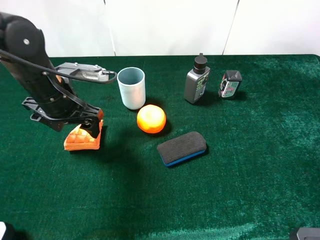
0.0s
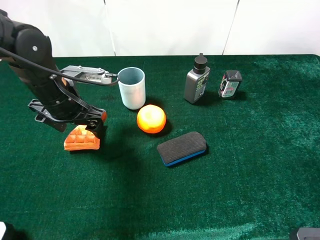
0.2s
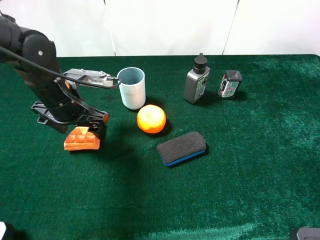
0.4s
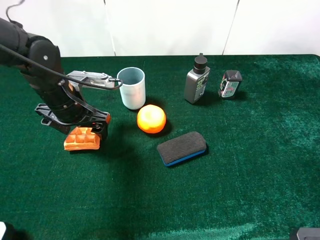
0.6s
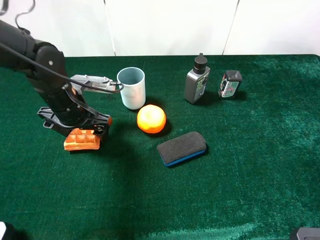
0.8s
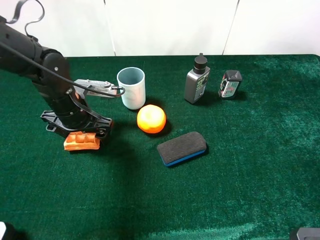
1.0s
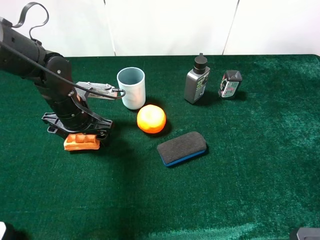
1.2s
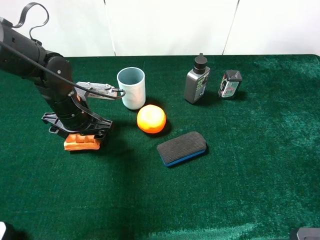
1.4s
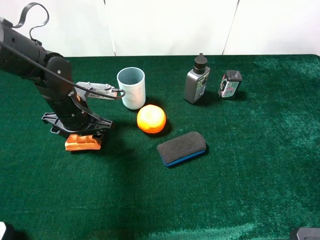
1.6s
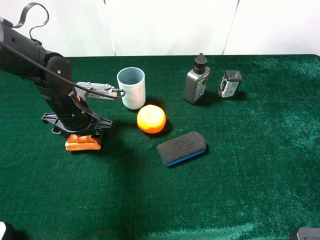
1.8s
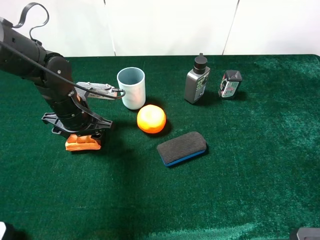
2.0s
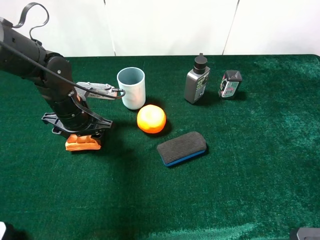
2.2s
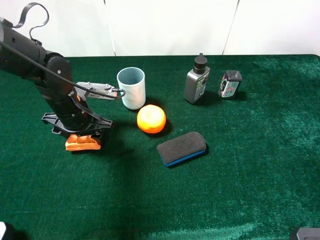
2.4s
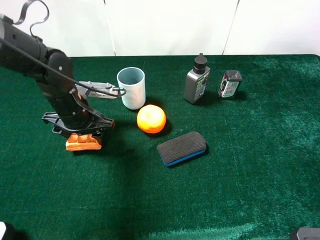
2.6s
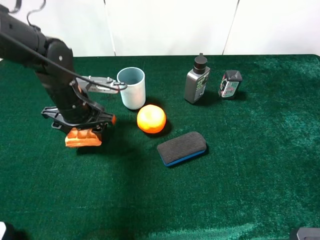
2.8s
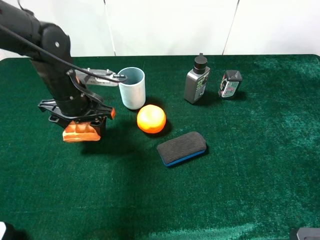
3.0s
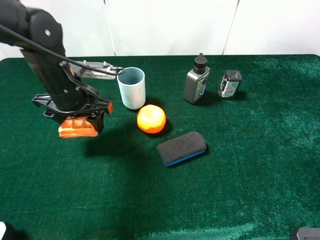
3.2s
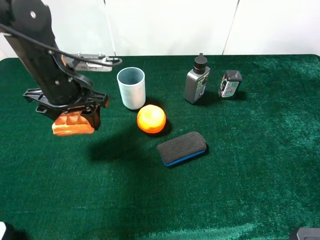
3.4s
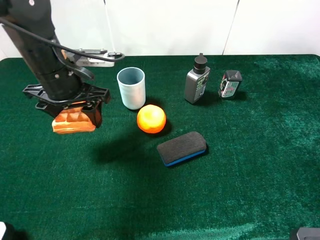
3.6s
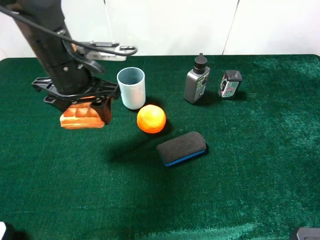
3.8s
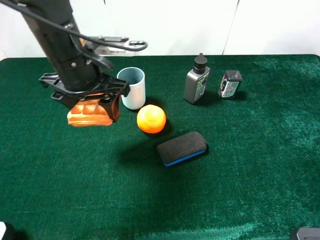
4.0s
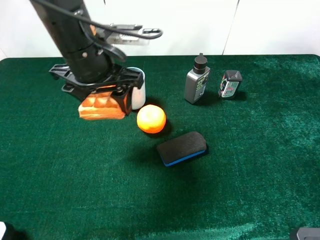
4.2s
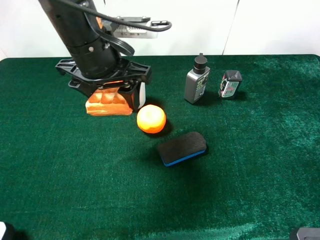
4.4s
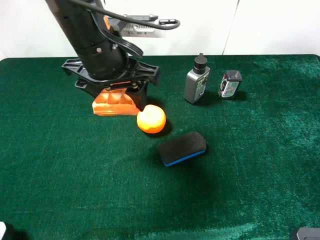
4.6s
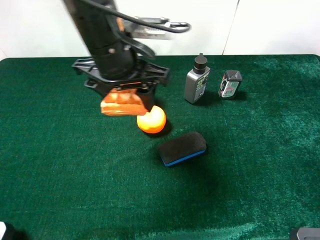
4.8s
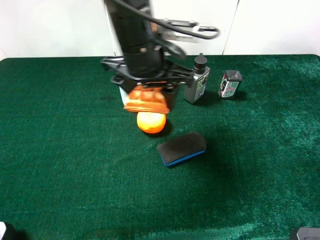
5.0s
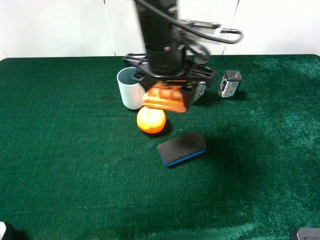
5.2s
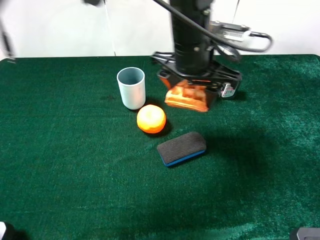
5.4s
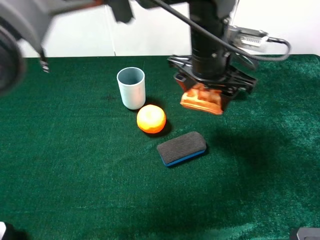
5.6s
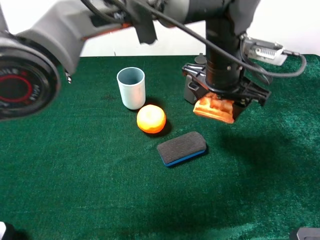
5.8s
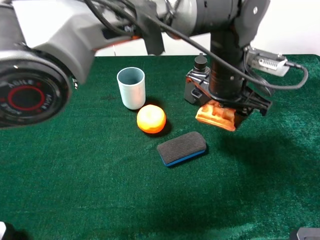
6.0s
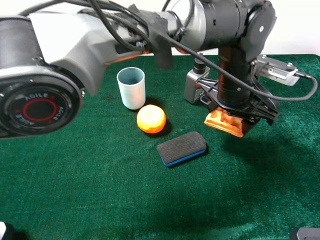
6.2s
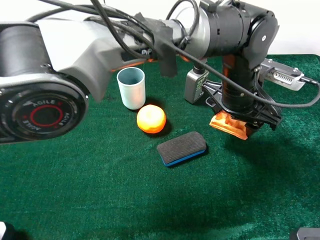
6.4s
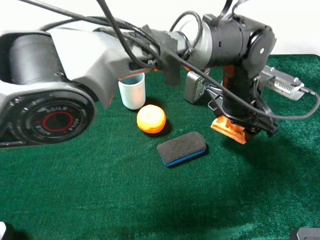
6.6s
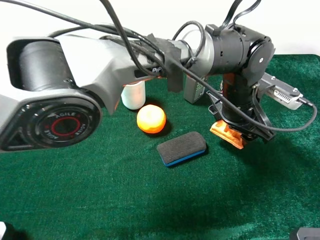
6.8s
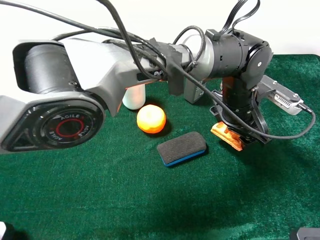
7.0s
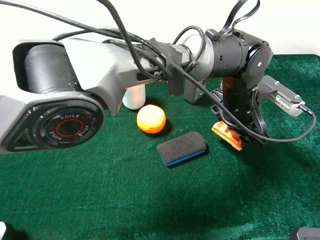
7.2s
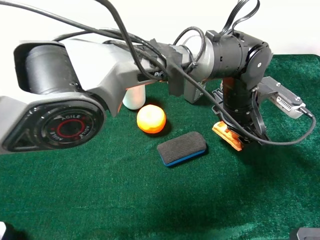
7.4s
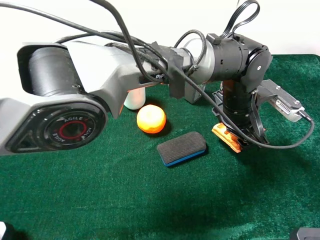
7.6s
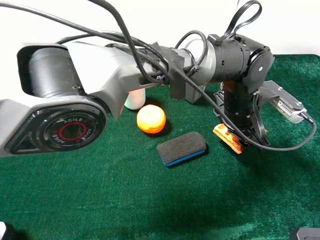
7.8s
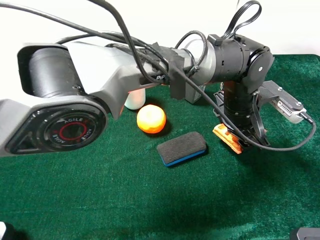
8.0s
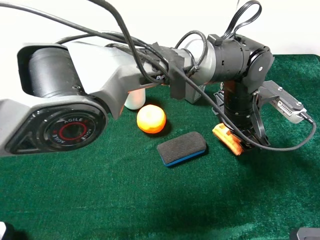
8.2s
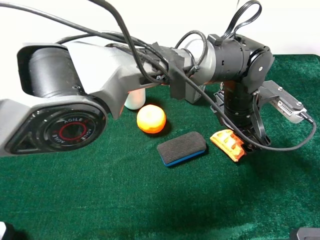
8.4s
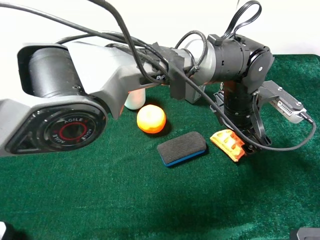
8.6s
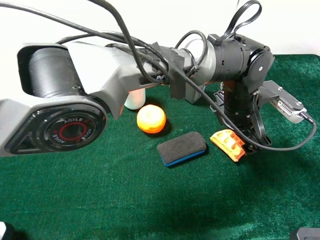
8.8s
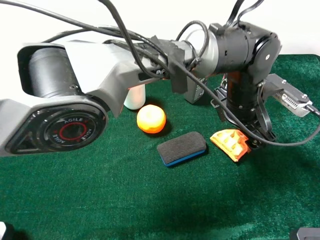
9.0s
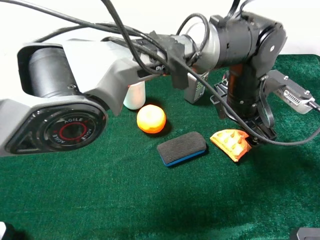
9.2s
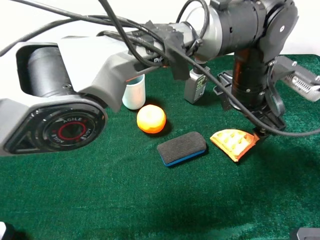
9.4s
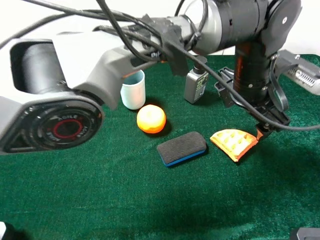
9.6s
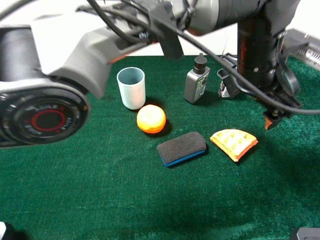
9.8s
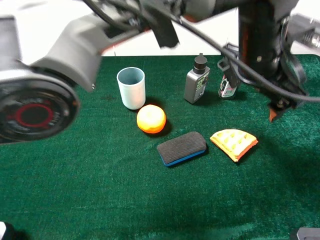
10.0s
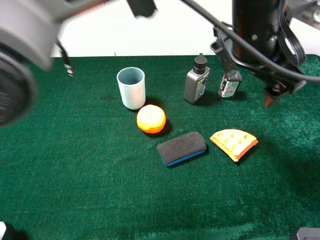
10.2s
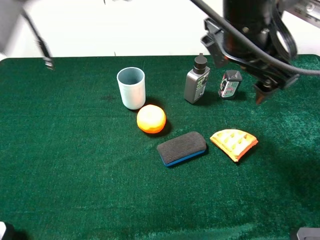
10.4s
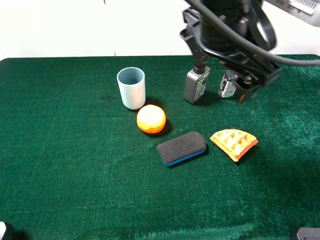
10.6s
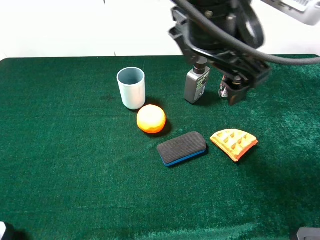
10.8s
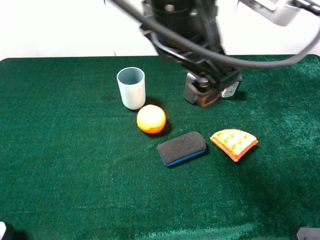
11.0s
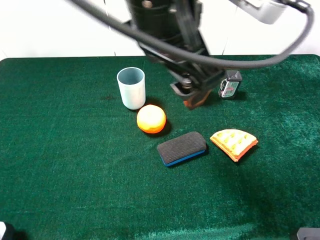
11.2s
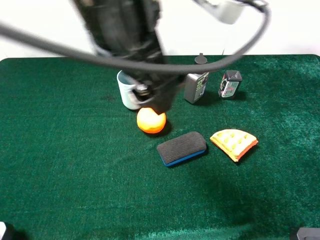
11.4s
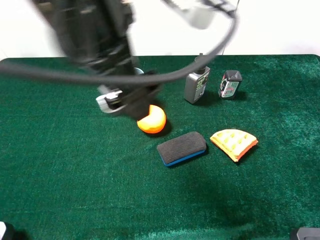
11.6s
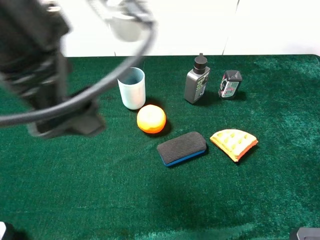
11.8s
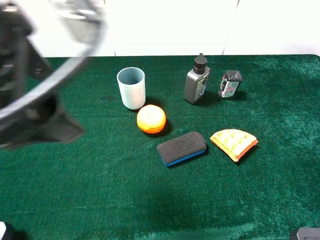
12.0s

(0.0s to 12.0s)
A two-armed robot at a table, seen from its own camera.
Task of the whole recording: the gripper move the object.
Step, 0.0s - 2.4s: Grasp the wallfe with the left gripper.
Step, 2.6s - 9.4s: Place the wallfe on the table with the left gripper.
0.0s - 1.6s: The left gripper travels downward by approximately 5 cm, and closes.
1.6s - 3.0s: The grippers stay close to where they were, moving slightly.
3.0s - 4.4s: The left gripper moves upward and to the right, about 15 cm.
4.4s - 6.0s: The left gripper shifts approximately 20 cm to the right.
6.0s - 7.6s: The left gripper moves downward, approximately 5 cm.
7.6s - 9.0s: The left gripper opens its fingers.
9.0s - 10.4s: The left gripper heads upward, covering about 15 cm.
10.4s - 12.0s: The left gripper heads to the left and backward, covering roughly 30 cm.

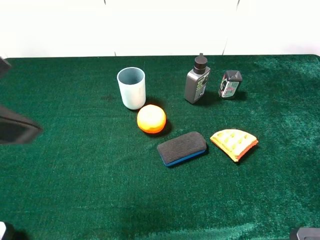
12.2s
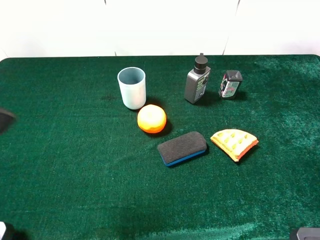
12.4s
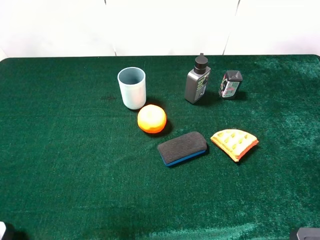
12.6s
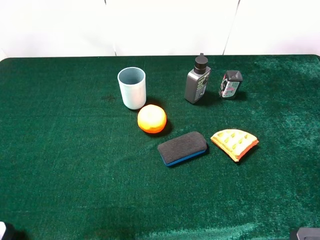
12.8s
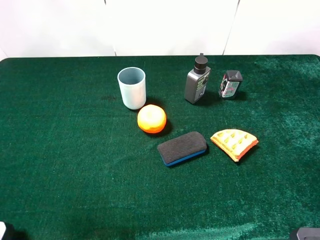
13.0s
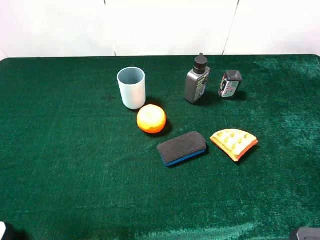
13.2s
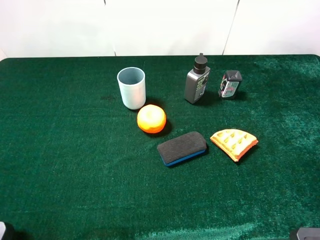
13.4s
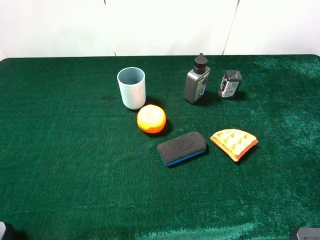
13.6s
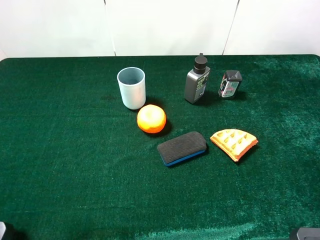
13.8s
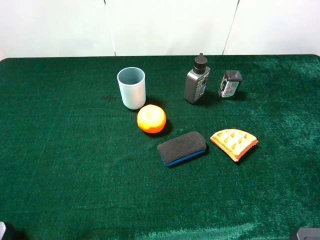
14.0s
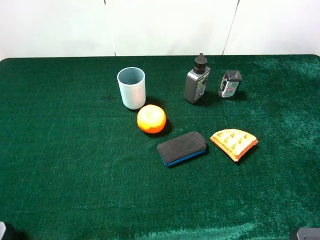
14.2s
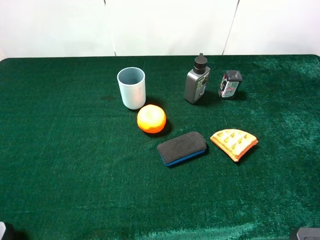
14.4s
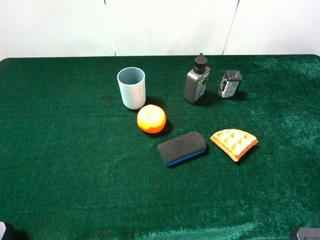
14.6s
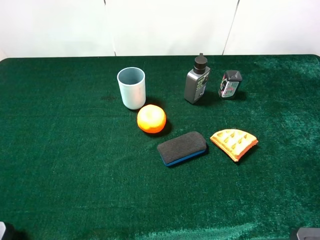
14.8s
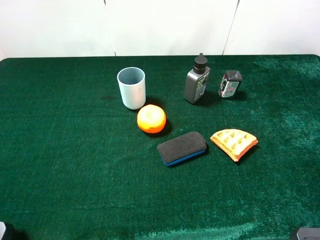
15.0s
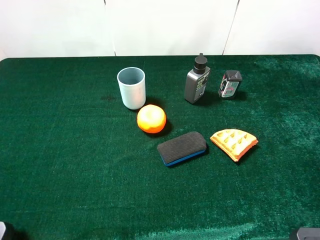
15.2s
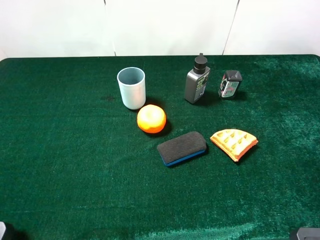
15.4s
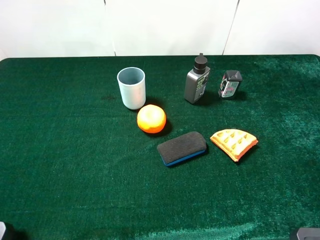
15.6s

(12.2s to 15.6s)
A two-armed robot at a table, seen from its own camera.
Task of the whole recording: the gripper move the object.
12.2s - 13.8s: The left gripper travels to the left, downward and backward by about 20 cm.

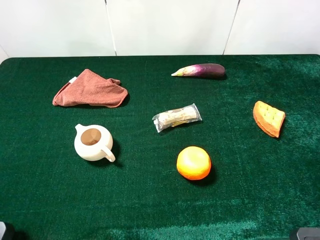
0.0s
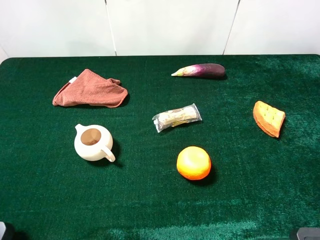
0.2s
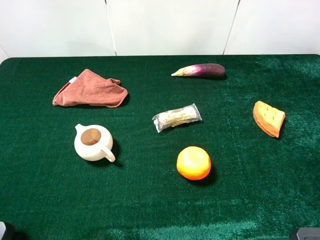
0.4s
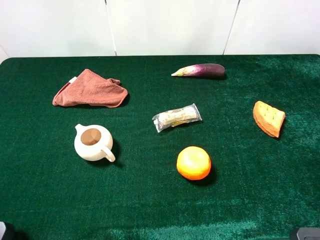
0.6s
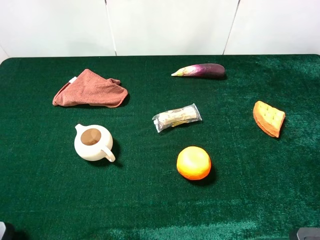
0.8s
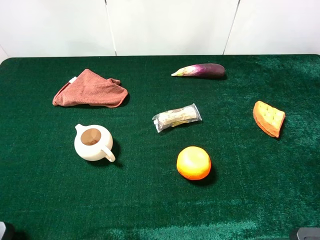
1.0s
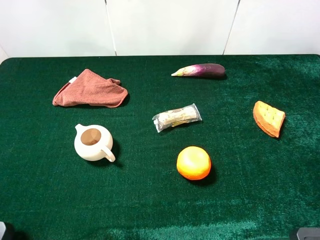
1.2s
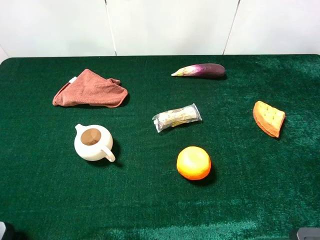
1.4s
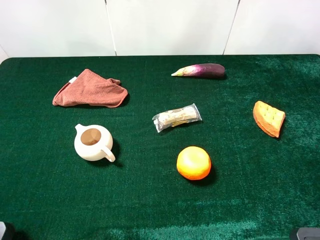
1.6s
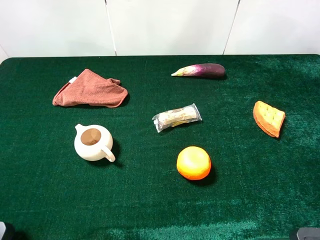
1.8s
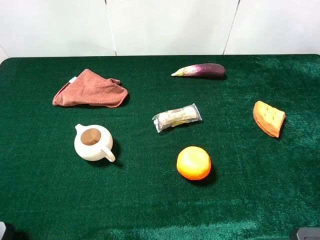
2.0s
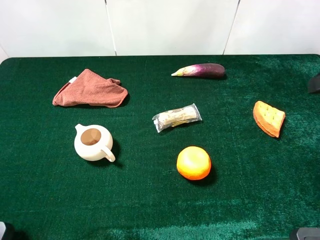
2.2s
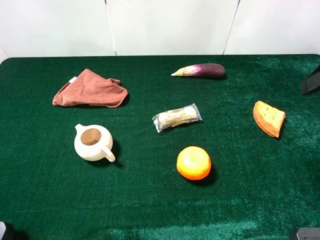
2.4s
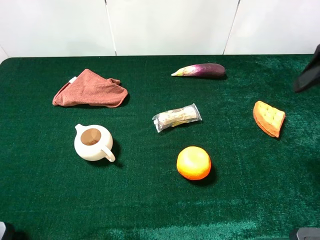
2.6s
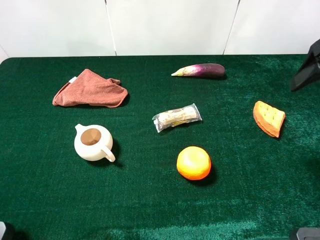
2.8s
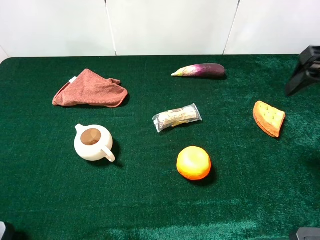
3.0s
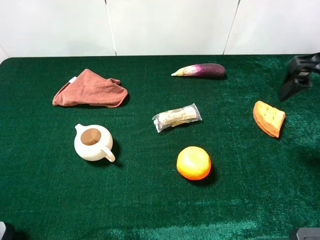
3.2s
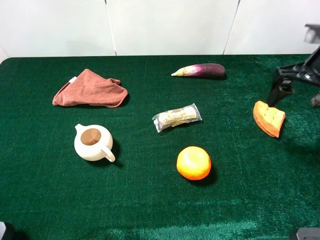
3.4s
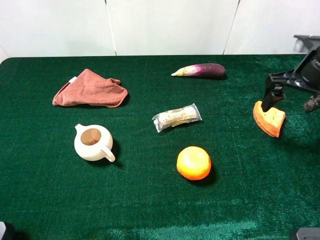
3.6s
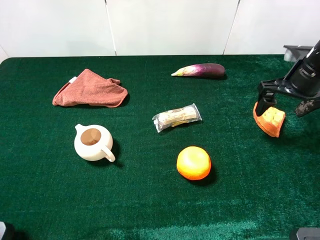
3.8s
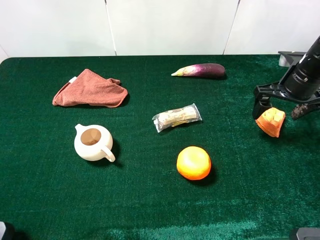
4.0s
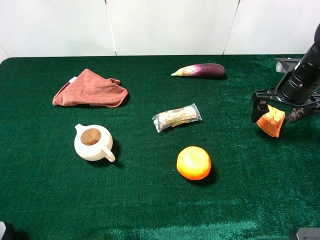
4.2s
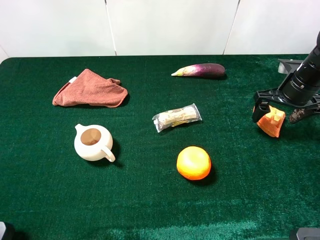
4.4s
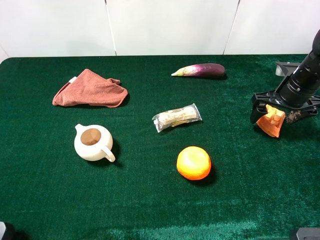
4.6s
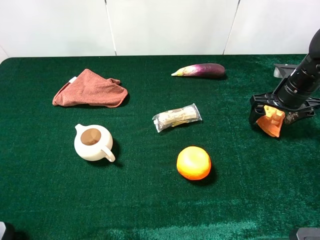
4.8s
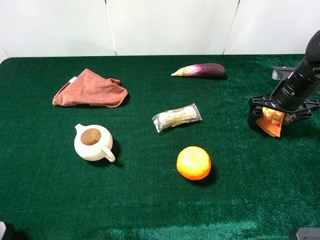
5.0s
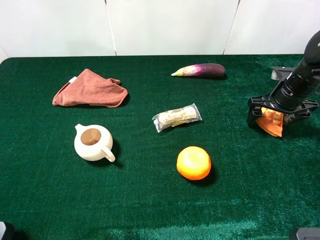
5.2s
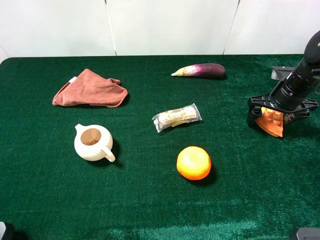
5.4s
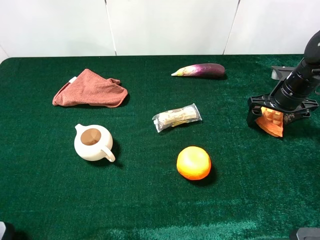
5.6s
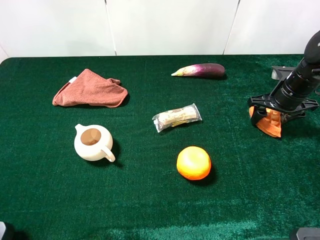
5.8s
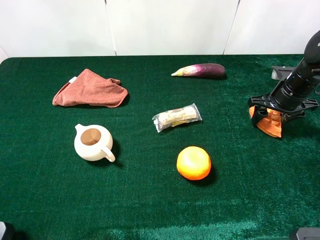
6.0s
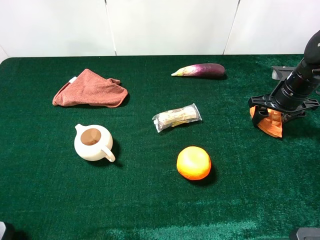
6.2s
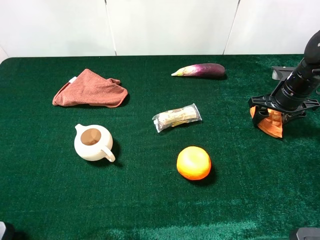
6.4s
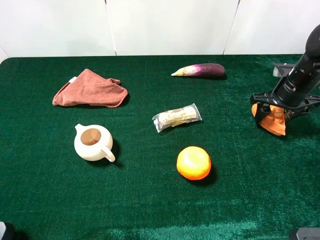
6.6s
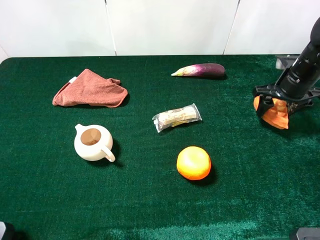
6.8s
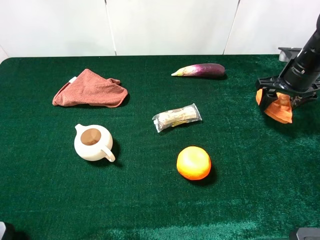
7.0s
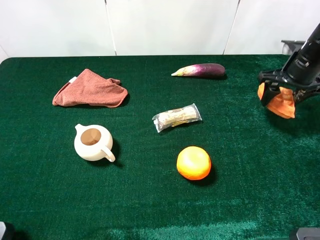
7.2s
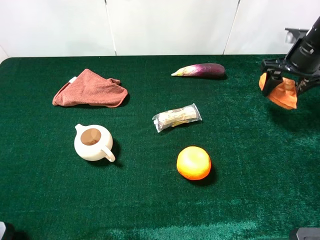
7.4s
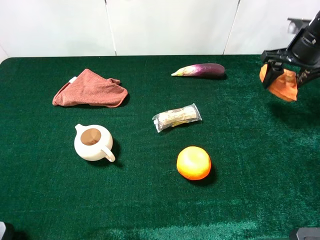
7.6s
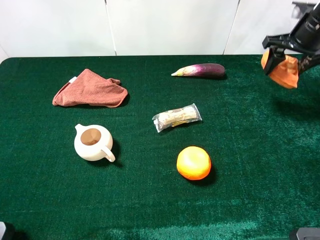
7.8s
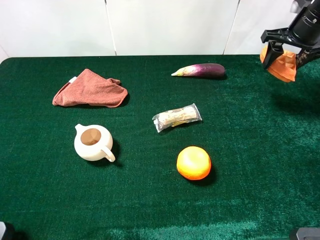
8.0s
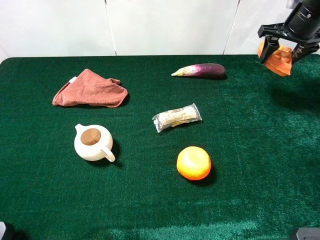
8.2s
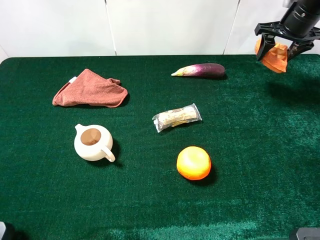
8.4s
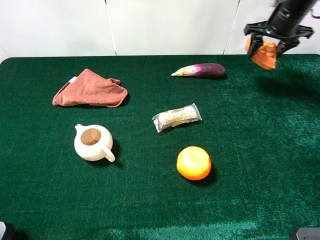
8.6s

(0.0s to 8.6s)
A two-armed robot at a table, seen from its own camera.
Task of the whole recording: the gripper move the object.
Step, 0.0s - 6.4s: Grasp the wallfe with the right gripper mangosteen.
2.8s - 4.4s: The right gripper travels downward and forward by approximately 20 cm.
4.4s - 5.8s: The right gripper closes up.
5.8s - 7.2s: The right gripper is displaced upward by roughly 5 cm.
7.2s - 8.6s: The right gripper is displaced forward by roughly 10 cm.
